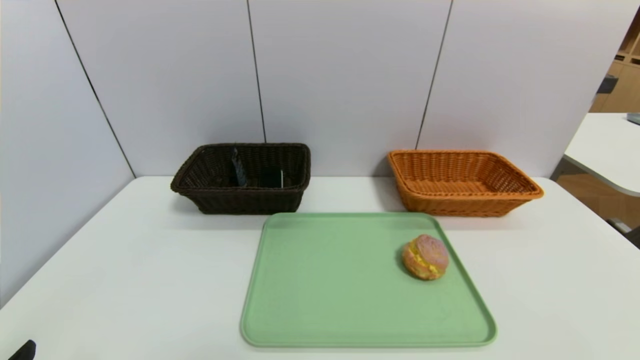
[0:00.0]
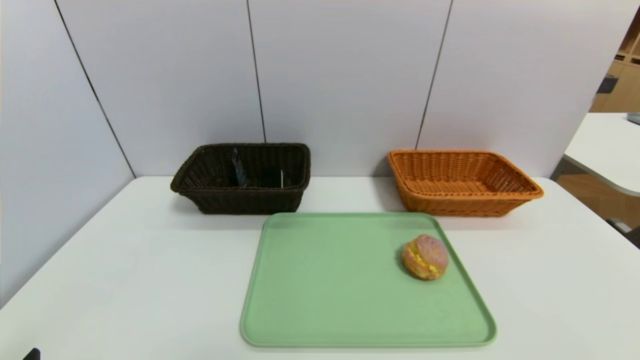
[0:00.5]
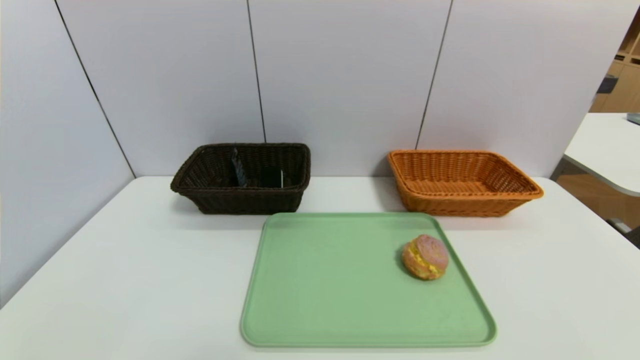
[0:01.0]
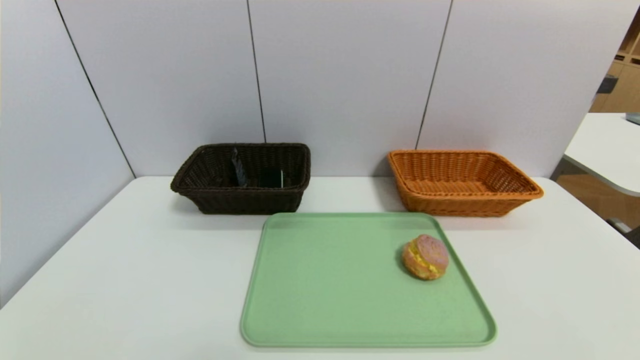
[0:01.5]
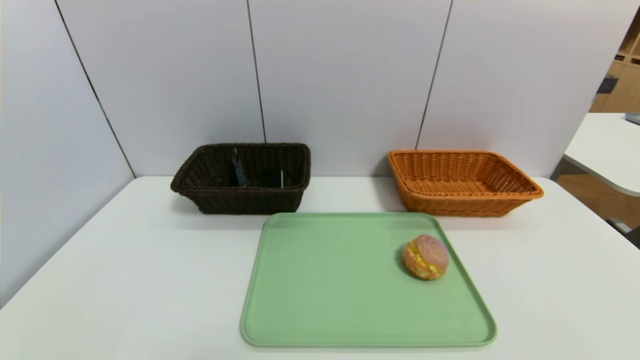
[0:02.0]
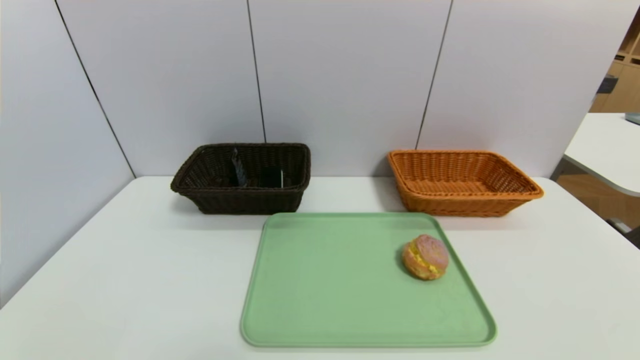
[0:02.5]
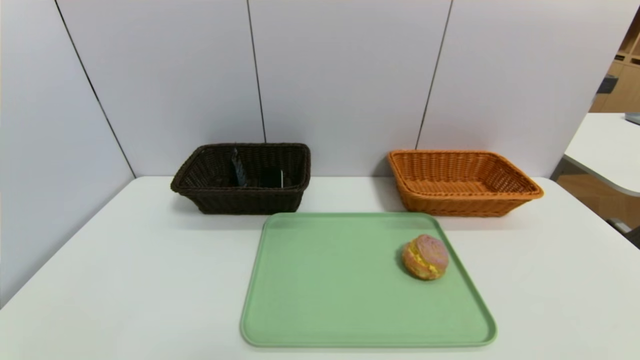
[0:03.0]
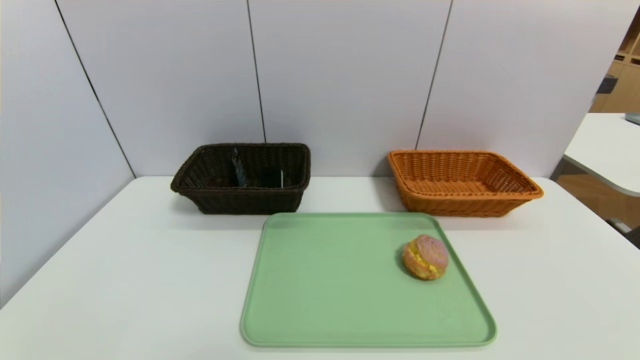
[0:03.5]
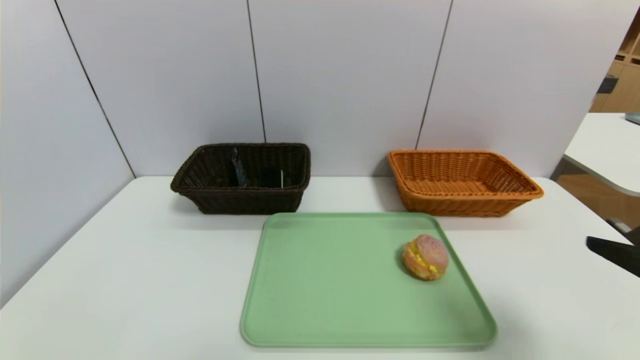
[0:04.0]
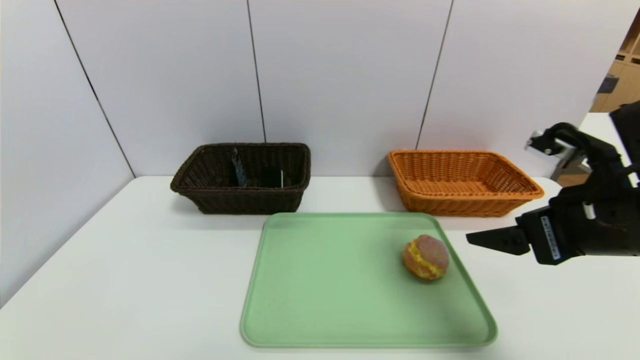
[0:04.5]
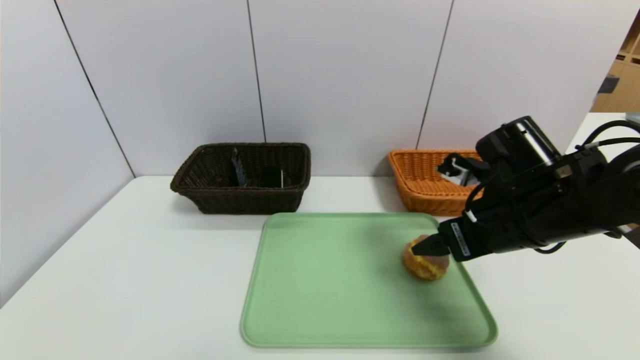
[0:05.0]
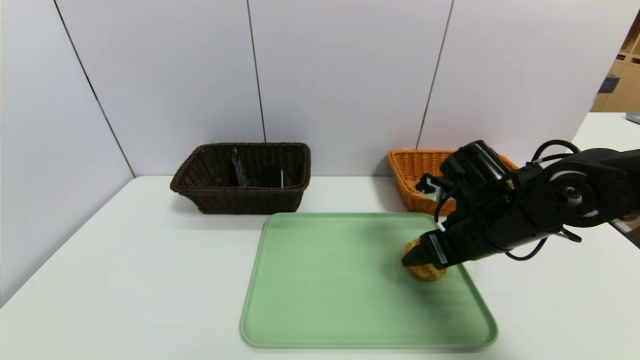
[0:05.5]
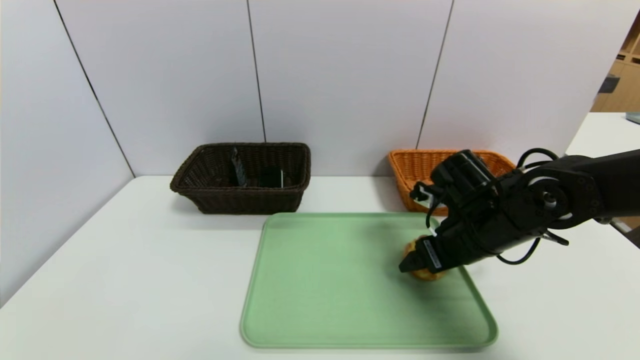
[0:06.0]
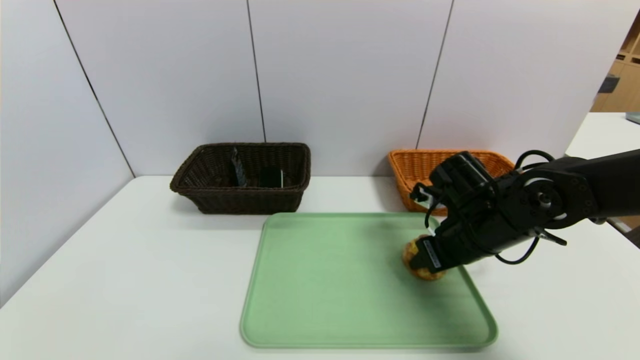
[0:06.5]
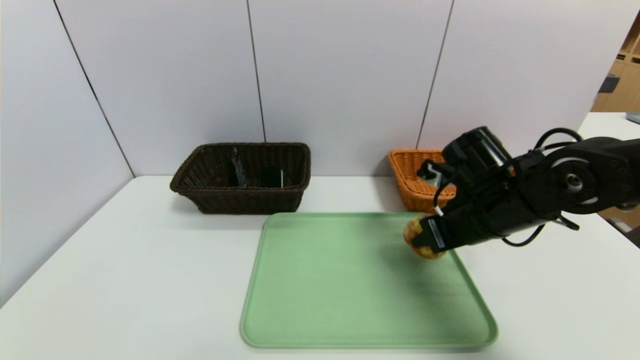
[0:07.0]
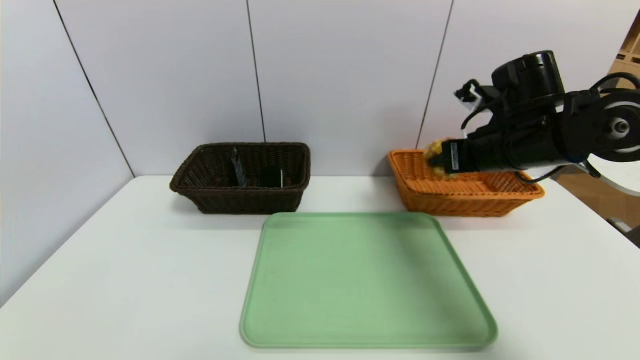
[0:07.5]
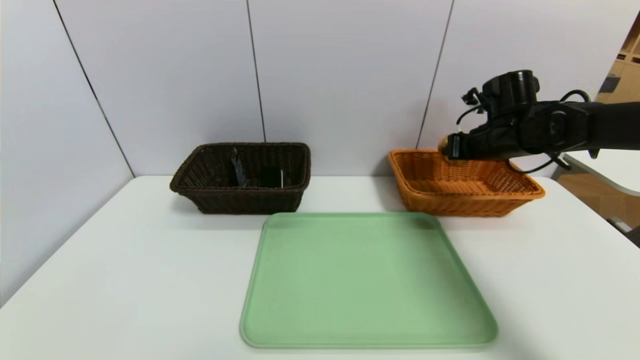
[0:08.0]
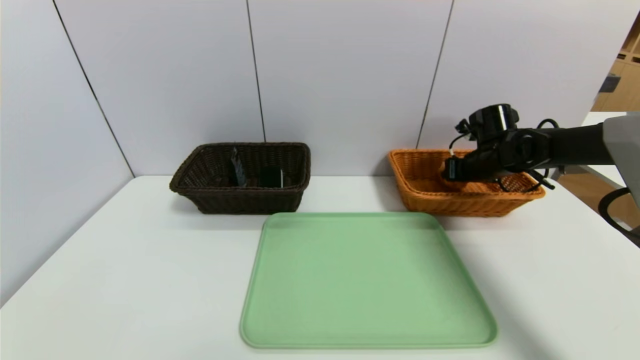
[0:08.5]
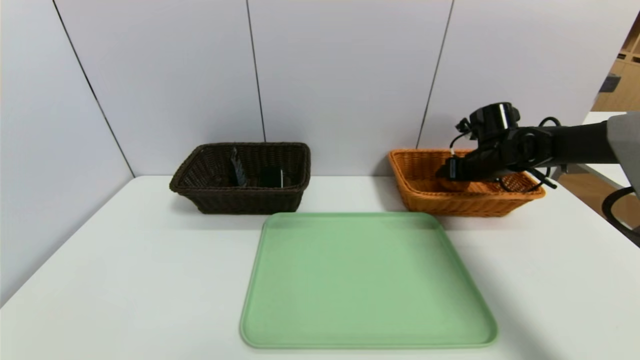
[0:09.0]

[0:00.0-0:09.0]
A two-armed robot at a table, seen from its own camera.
Task of the whole recording: place the food in the right basket with the right gripper, and place the non food items in the left basket with the left gripper.
0:02.0 to 0:04.5: The right gripper shifts some 30 cm forward and upward.
0:04.5 to 0:07.0: The right gripper shifts approximately 10 cm forward, downward and to the left, and closes.
0:07.0 to 0:09.0: The right gripper shifts approximately 20 cm forward and to the right, and opens up.

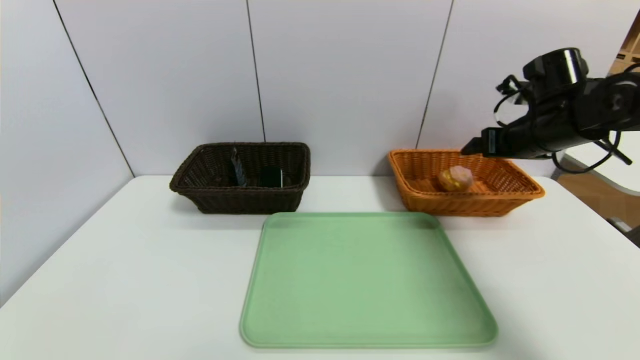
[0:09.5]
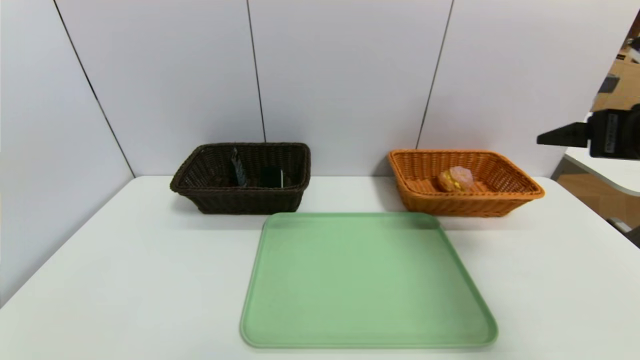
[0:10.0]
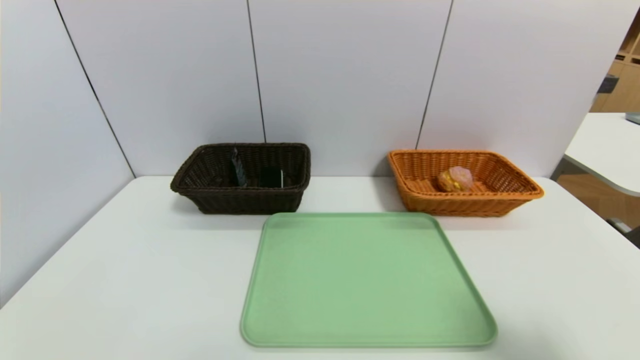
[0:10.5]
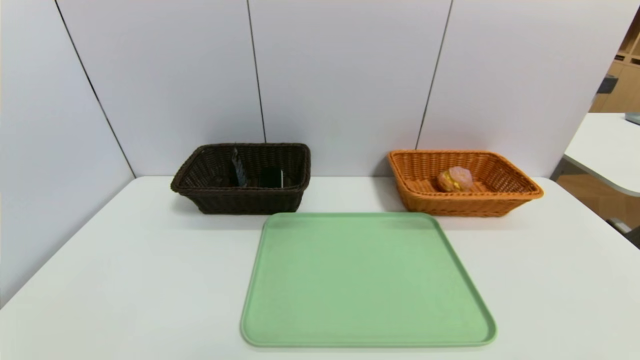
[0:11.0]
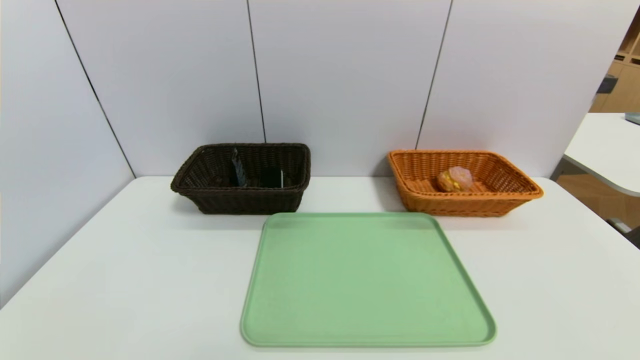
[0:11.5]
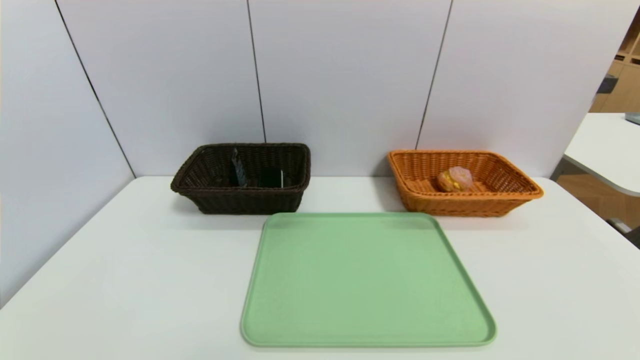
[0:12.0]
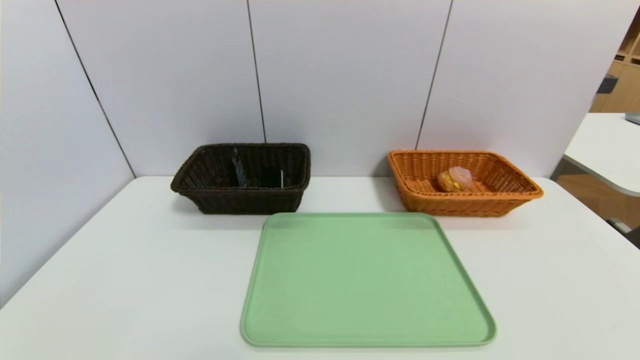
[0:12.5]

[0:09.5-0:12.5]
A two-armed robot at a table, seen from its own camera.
Task of the whole recording: place the food in the right basket with the right gripper, and place the non food items in the left basket with the left gripper.
0:09.5 to 0:11.0: The right gripper heads backward, covering some 40 cm.

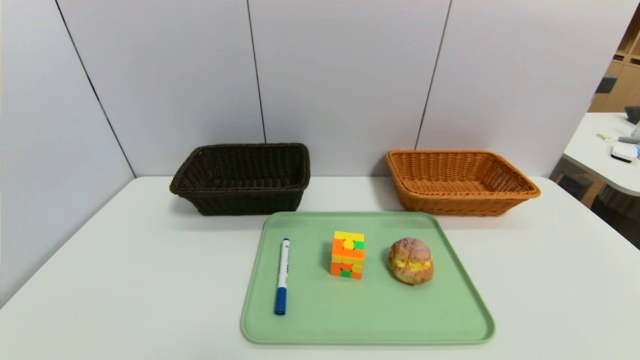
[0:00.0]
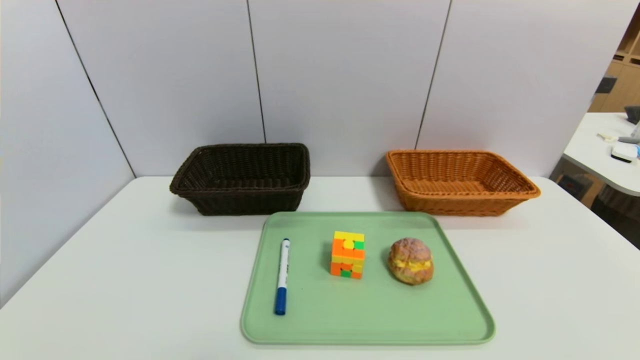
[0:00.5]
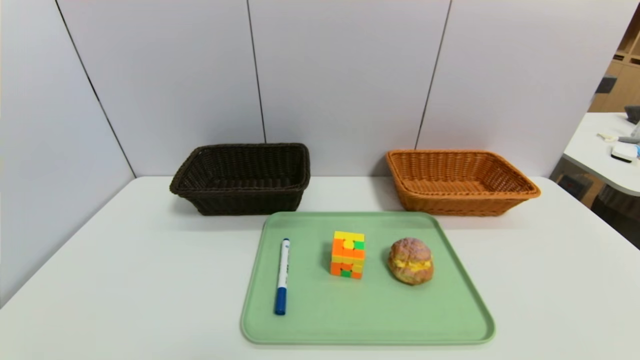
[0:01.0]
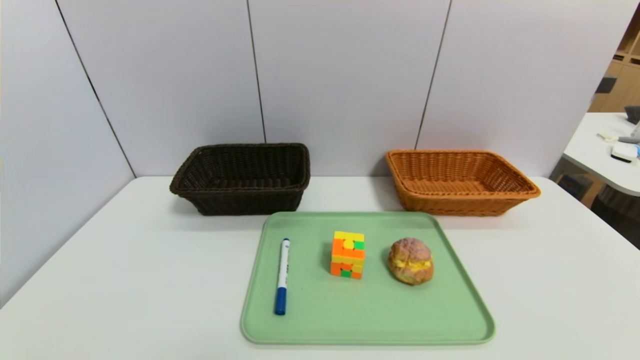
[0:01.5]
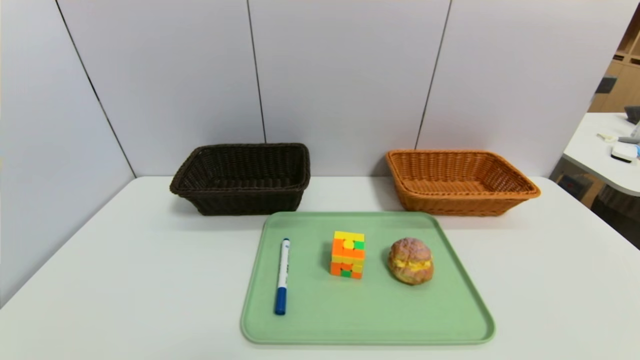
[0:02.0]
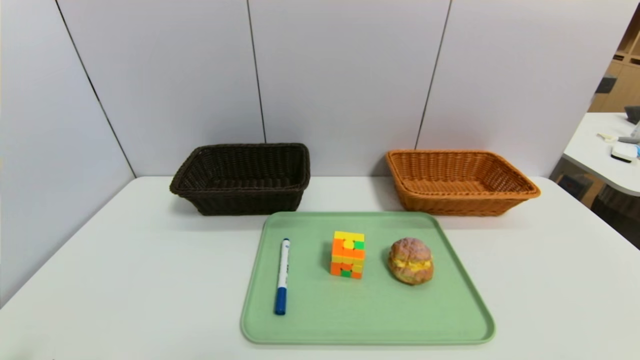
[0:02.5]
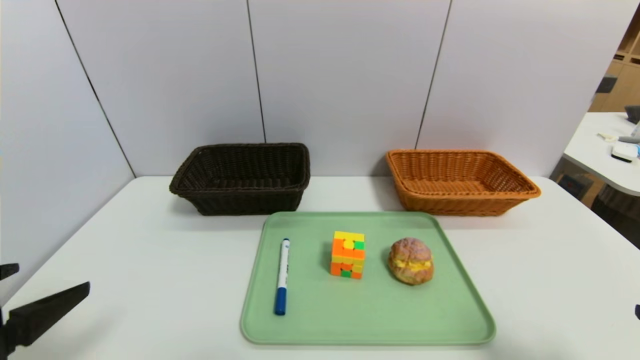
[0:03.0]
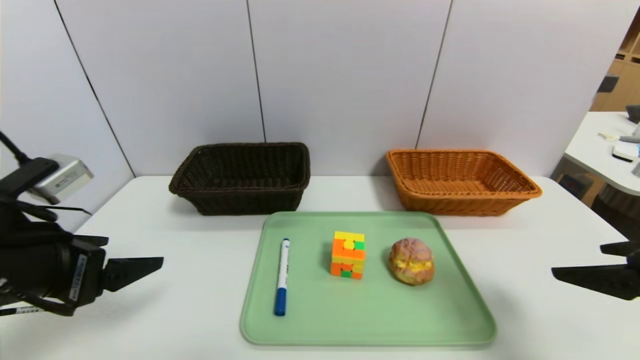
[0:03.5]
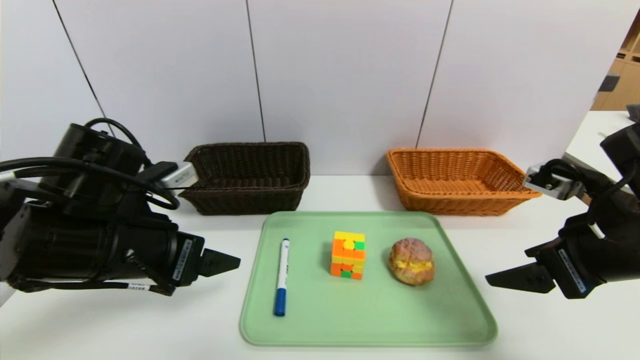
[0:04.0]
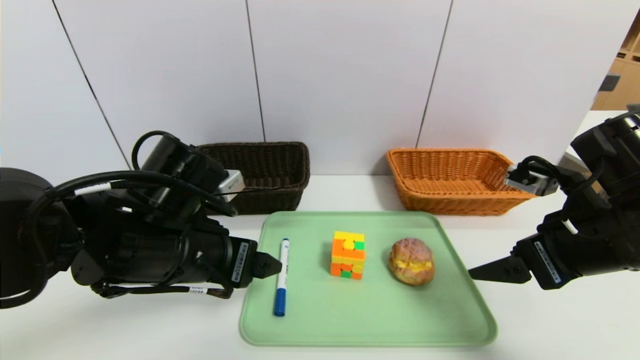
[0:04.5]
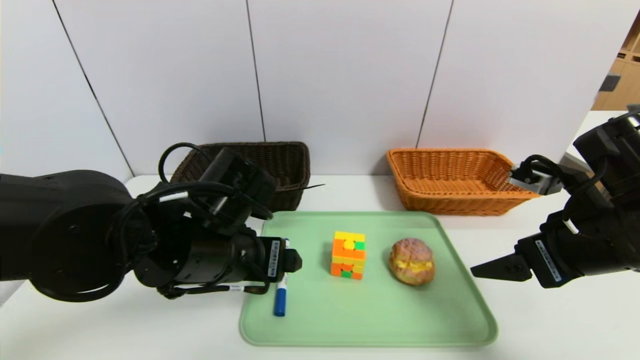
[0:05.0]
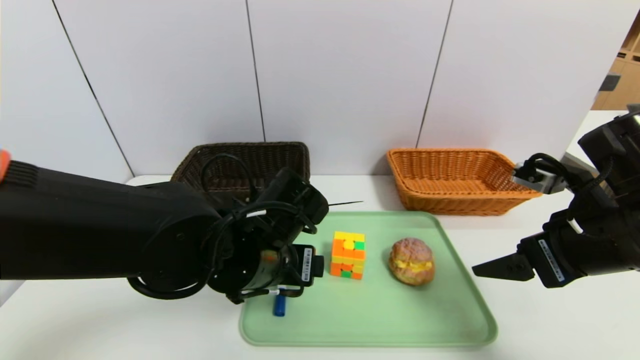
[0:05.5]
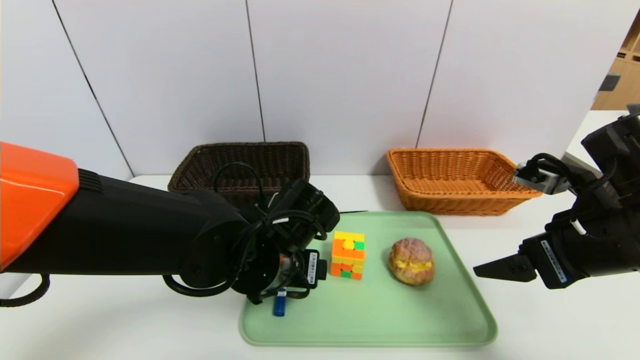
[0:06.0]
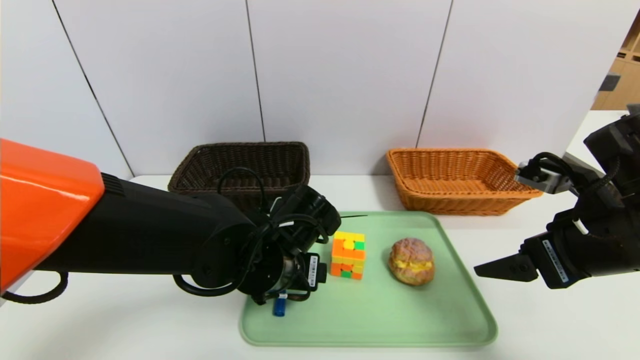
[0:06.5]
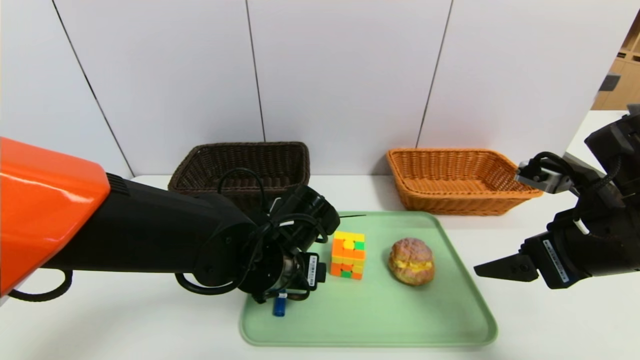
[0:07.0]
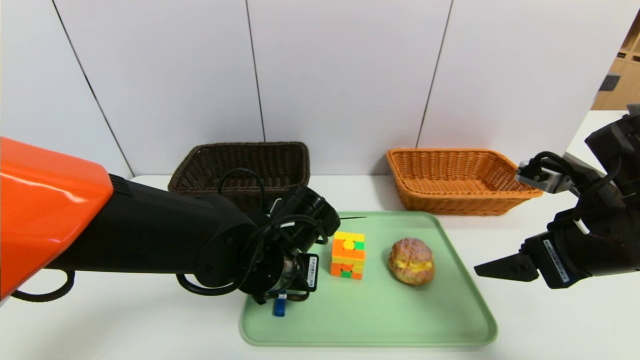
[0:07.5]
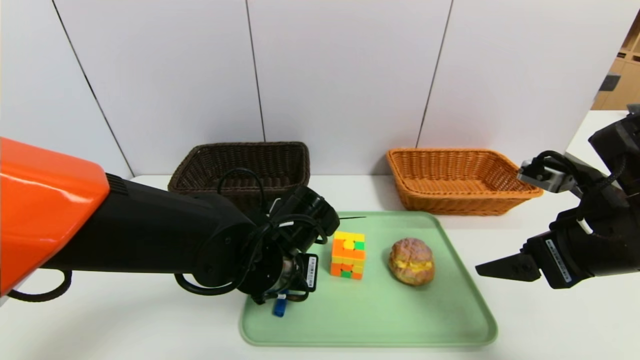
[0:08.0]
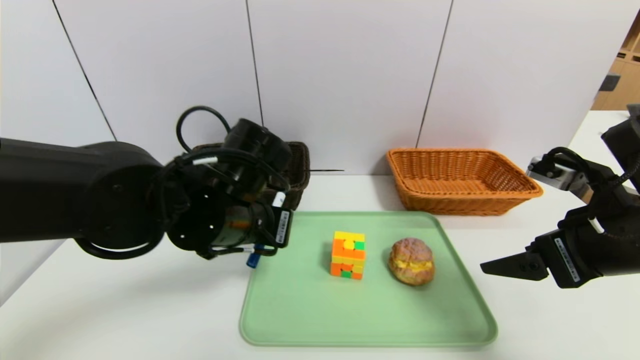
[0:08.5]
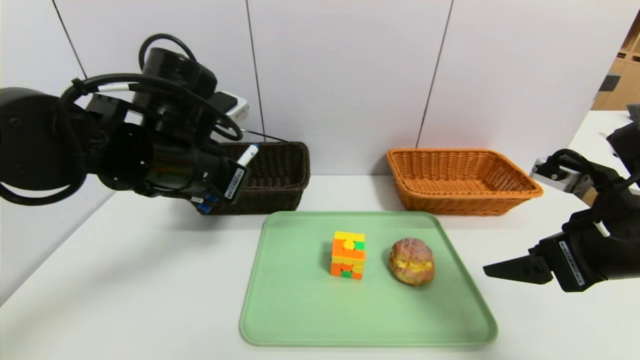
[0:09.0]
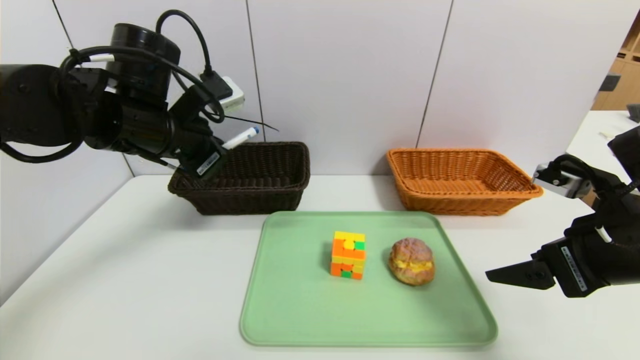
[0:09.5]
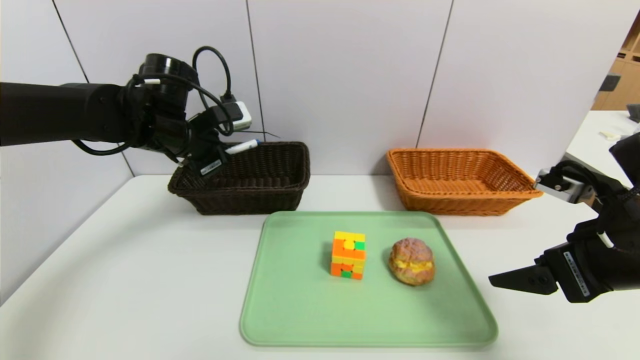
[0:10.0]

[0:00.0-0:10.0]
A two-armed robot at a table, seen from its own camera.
Task of the whole recording: place the food in the right basket with the right gripper, and place the non food items in the left basket with the left gripper.
0:02.0 to 0:04.0: The right gripper moves forward and upward, about 25 cm. Meanwhile the left gripper goes about 30 cm forward, upward and to the right.
0:04.0 to 0:06.0: The left gripper heads to the right and downward, covering roughly 15 cm.
0:06.0 to 0:08.0: The left gripper closes.
0:08.0 to 0:10.0: The left gripper travels to the left, forward and upward by roughly 25 cm.
